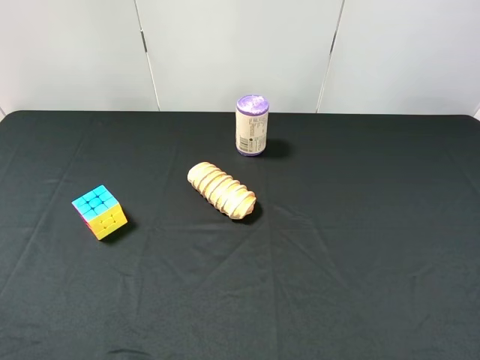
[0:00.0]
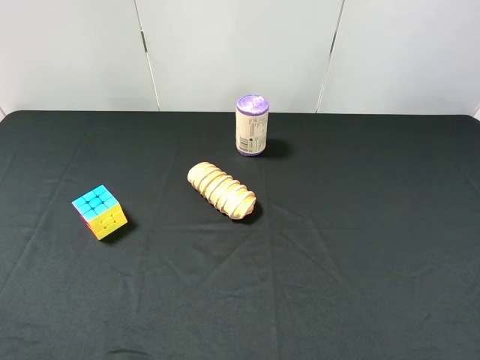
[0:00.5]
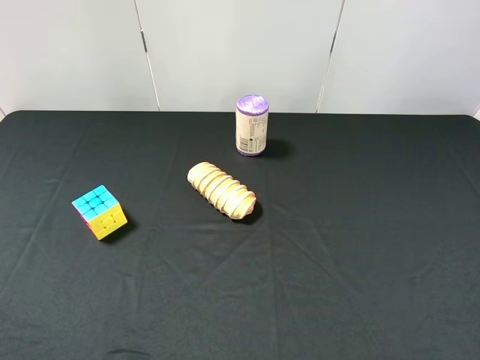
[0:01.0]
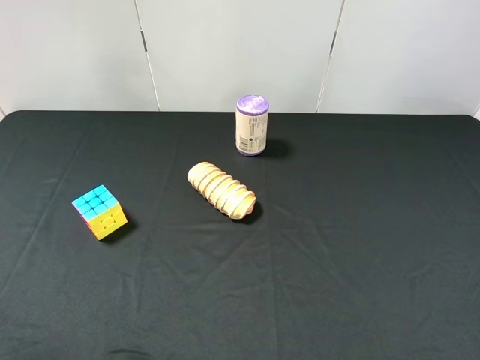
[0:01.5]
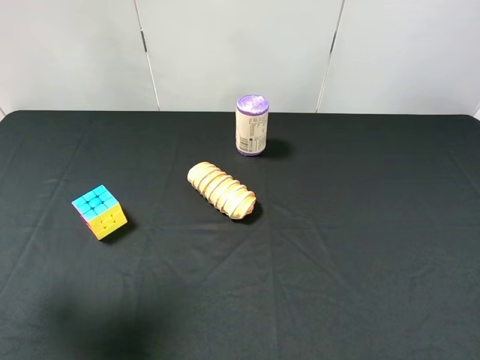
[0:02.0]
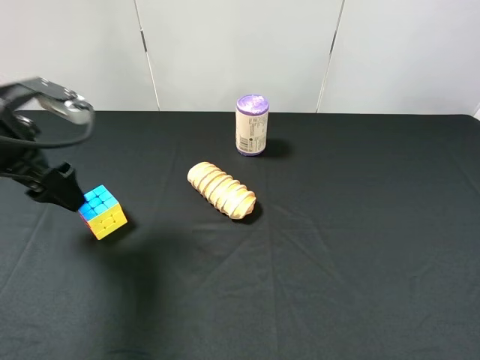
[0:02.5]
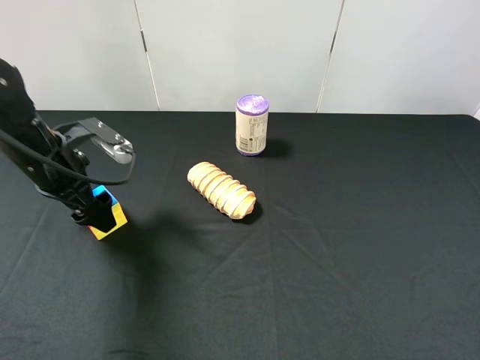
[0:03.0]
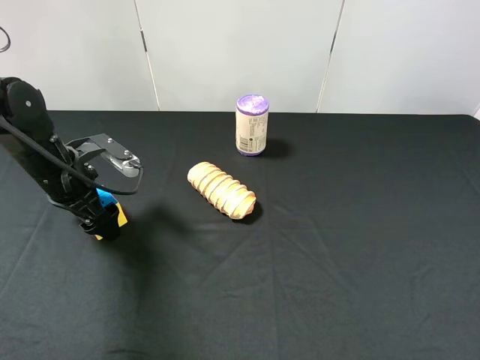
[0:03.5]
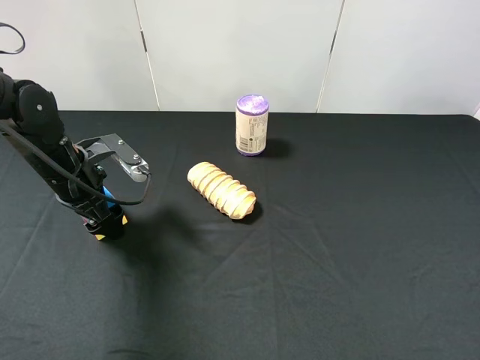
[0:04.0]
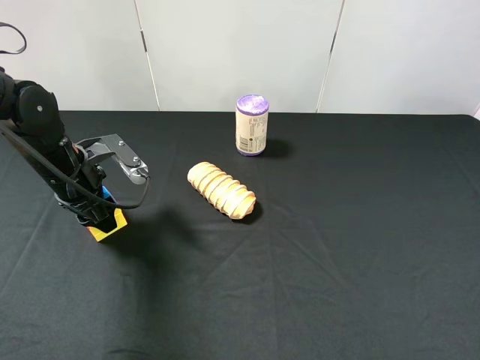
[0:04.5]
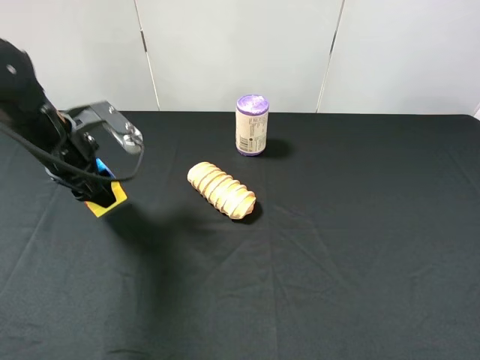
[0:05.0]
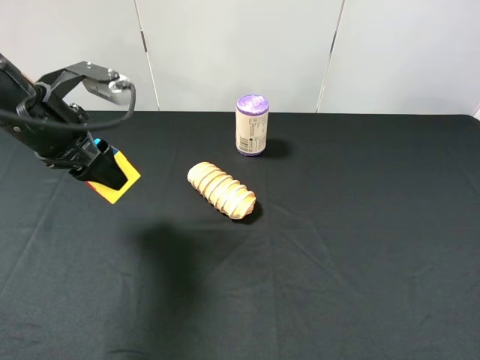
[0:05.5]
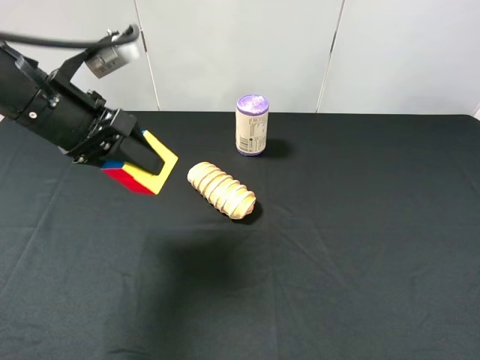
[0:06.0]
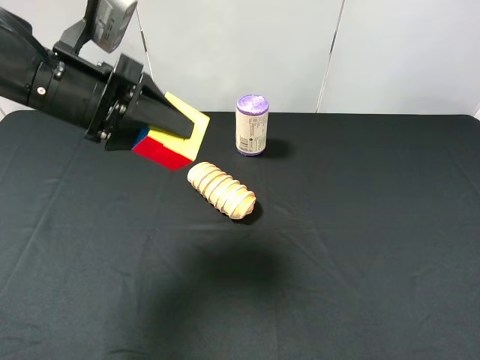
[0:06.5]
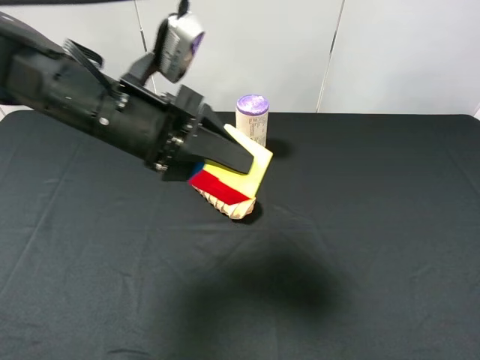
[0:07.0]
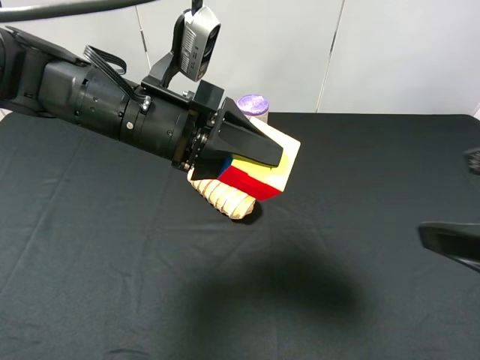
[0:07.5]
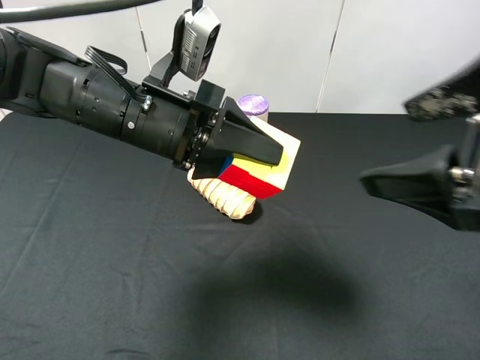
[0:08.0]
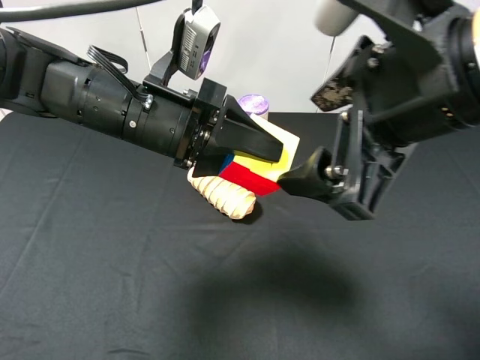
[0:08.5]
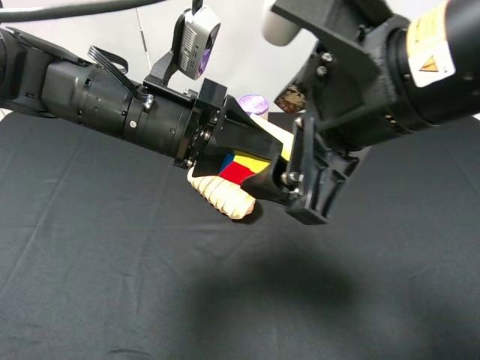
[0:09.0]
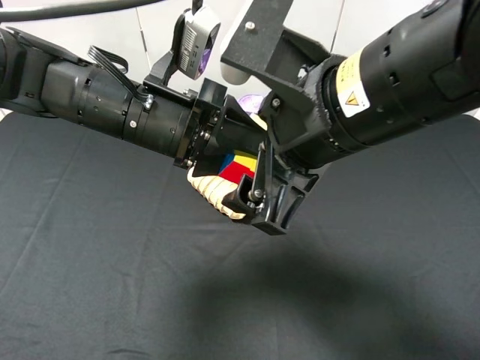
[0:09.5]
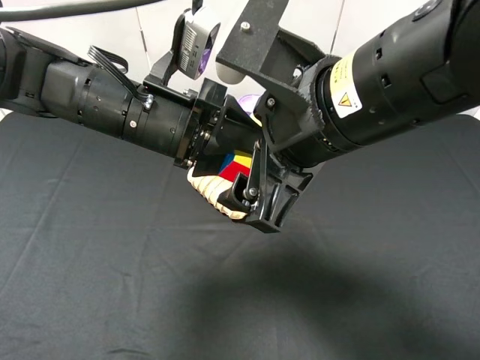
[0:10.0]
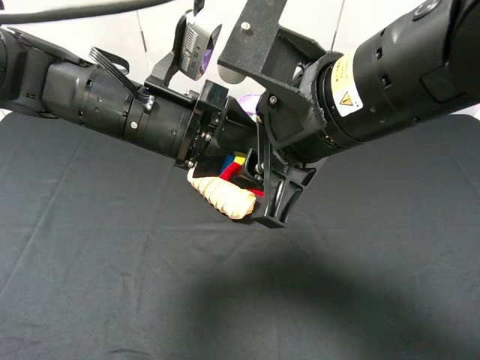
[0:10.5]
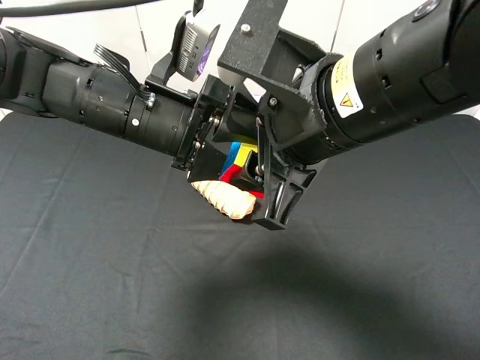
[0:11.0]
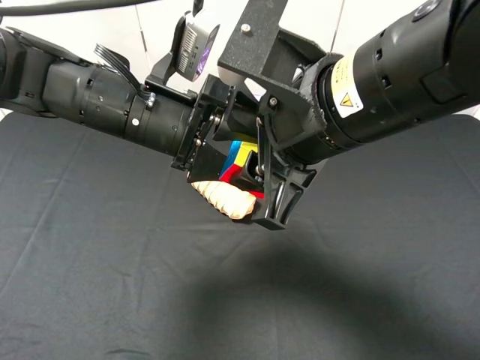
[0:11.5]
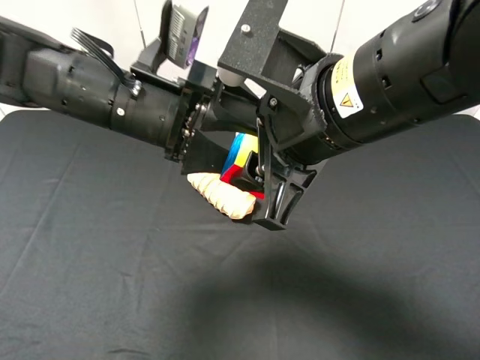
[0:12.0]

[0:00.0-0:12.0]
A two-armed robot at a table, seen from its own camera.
Task of the whole recording: use the left gripper to pick up the item and transfer it from the left gripper to the right gripper.
0:00.0 to 0:02.0: The left gripper shifts some 20 cm forward.
0:02.0 to 0:04.0: The left gripper heads downward and forward, covering about 20 cm.
0:04.0 to 0:06.0: The left gripper travels upward by approximately 10 cm, and closes its fingers.
0:06.0 to 0:08.0: The right gripper shifts approximately 15 cm forward, to the left and upward, while the left gripper goes roughly 10 cm to the right.
0:08.0 to 0:10.0: The right gripper travels to the left by approximately 15 cm.
0:10.0 to 0:12.0: The right gripper closes its fingers, while the left gripper opens its fingers.

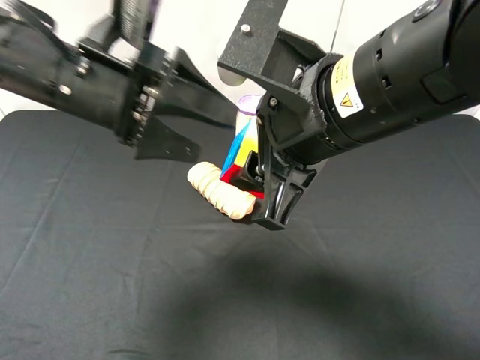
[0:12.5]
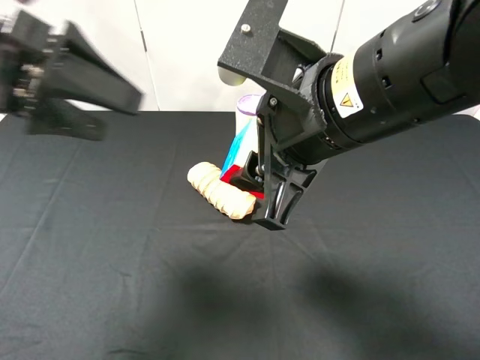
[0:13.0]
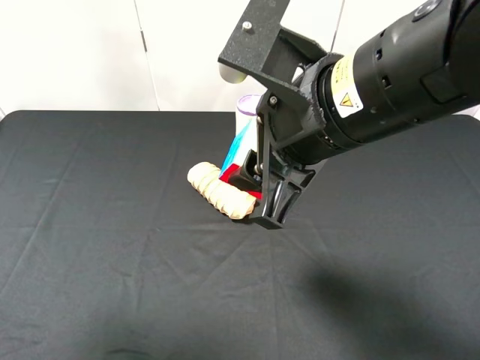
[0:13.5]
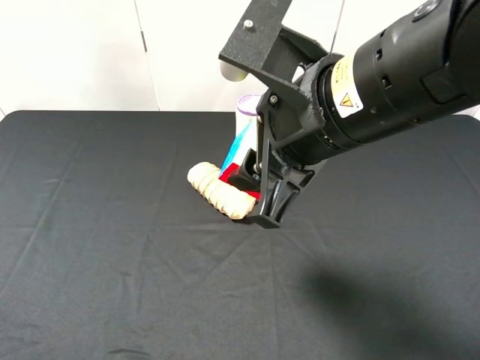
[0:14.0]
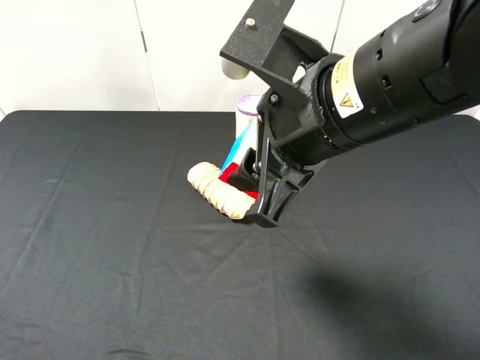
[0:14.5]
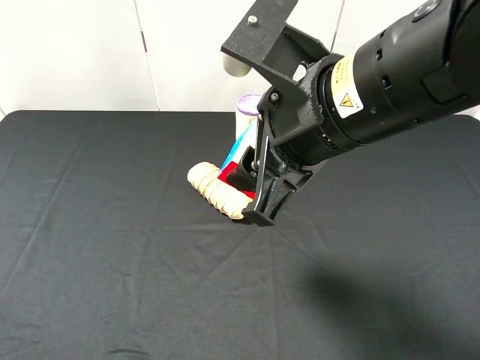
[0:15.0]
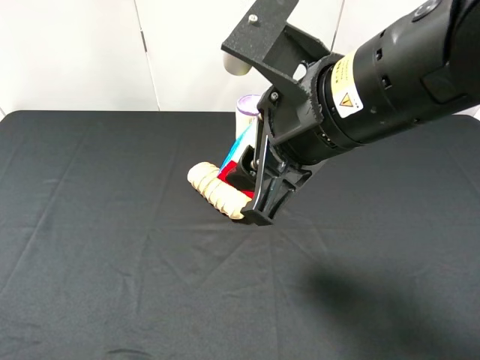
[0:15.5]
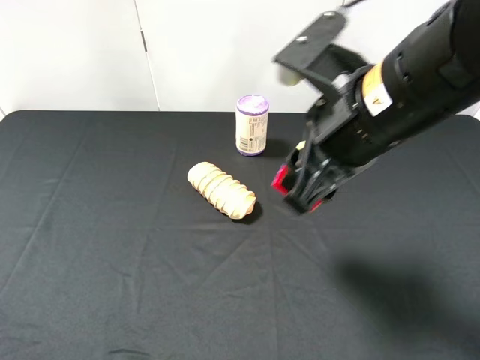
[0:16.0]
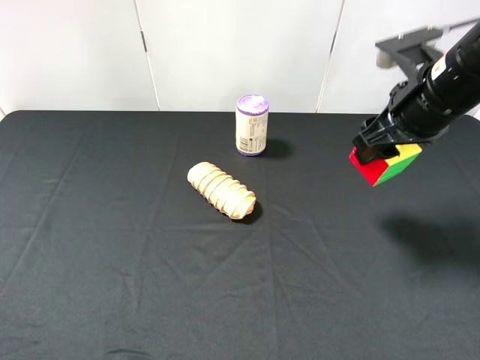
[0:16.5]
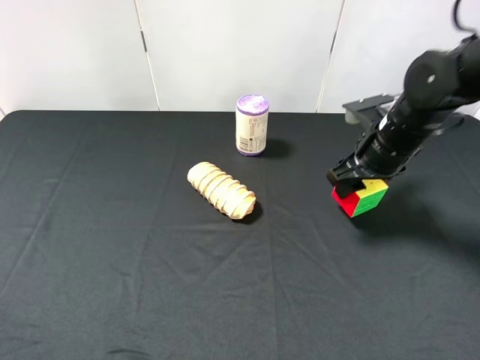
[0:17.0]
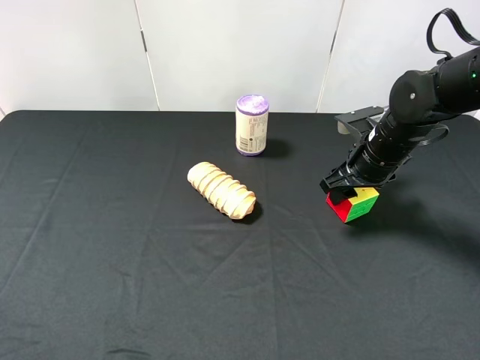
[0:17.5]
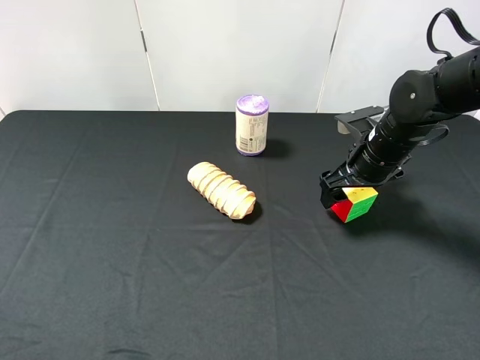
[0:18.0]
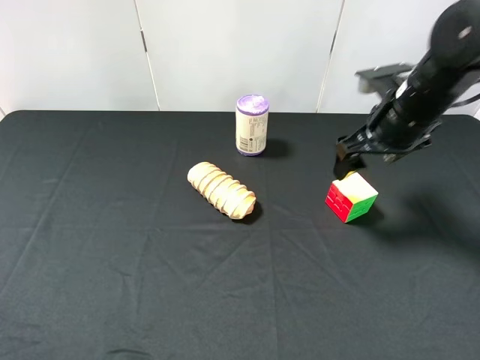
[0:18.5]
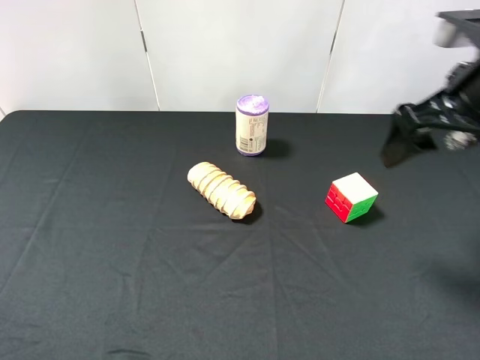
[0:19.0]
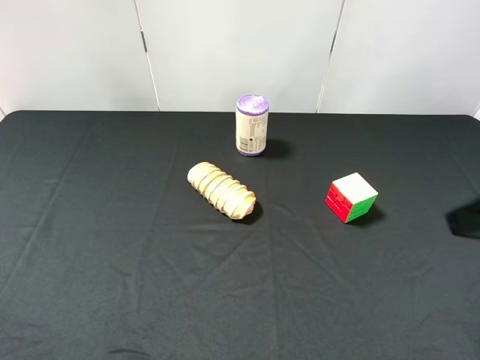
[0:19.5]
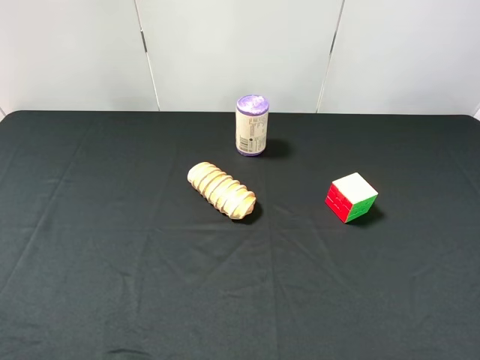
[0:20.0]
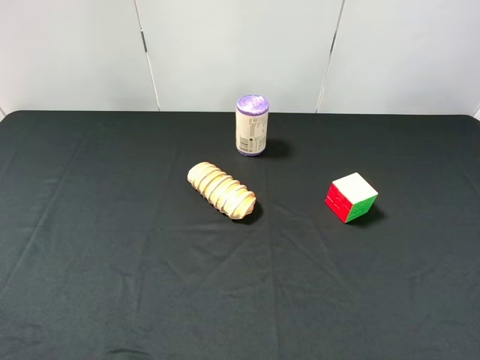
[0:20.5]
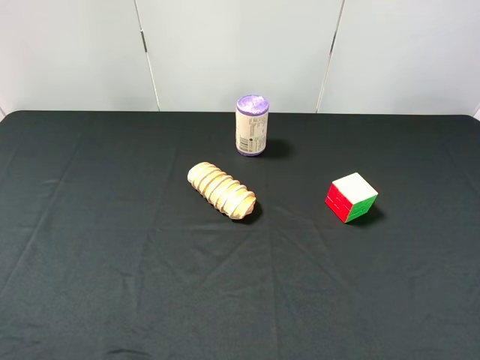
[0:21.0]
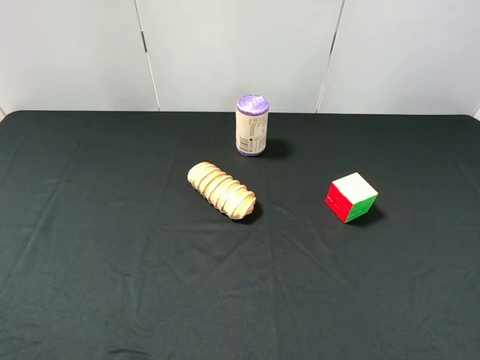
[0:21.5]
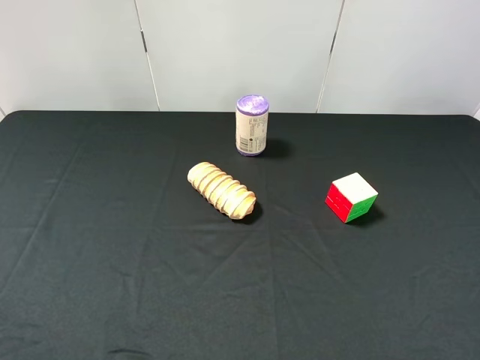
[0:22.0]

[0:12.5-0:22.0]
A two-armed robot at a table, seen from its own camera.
Task of the whole recording: use the left gripper to pick up the item and transfer it from the left gripper to the right gripper.
0:12.5 to 0:14.5: The left gripper is displaced backward and to the left by some 30 cm.
0:14.5 to 0:16.5: The right gripper goes about 20 cm to the right and forward.
0:16.5 to 0:18.0: The right gripper travels downward and forward by some 15 cm, and opens its fingers.
0:18.0 to 0:20.0: The right gripper travels backward and upward by some 35 cm.

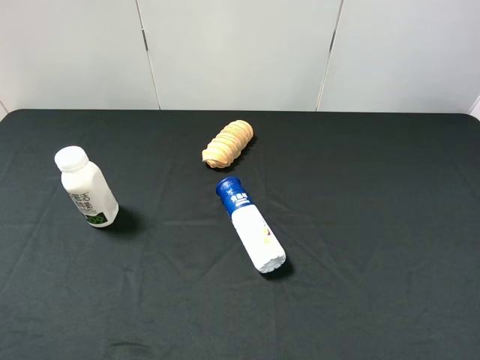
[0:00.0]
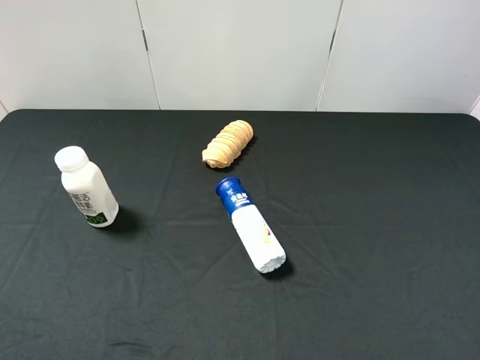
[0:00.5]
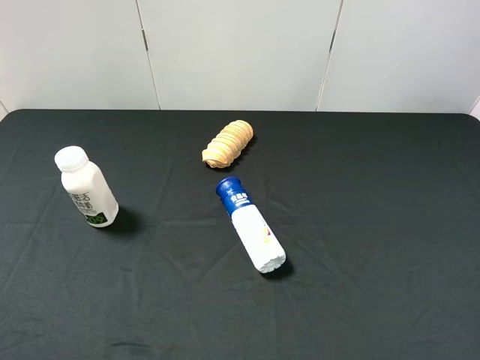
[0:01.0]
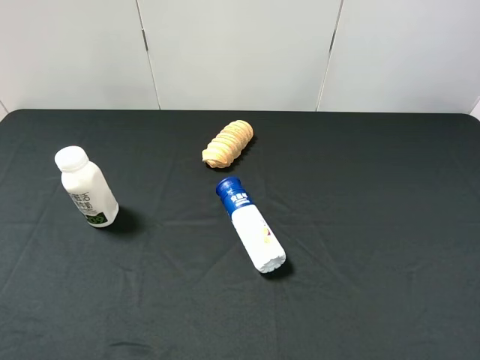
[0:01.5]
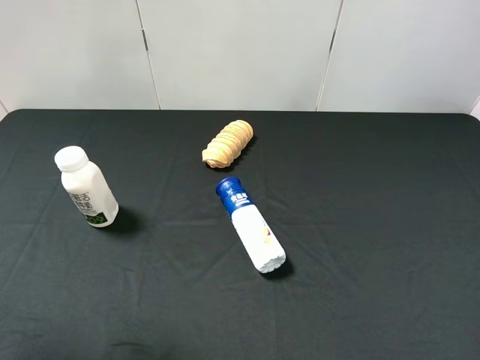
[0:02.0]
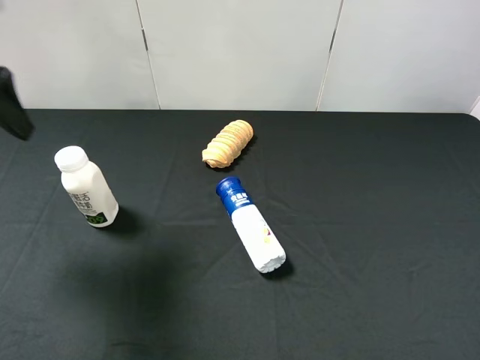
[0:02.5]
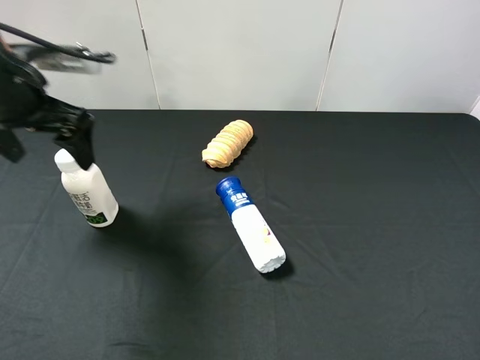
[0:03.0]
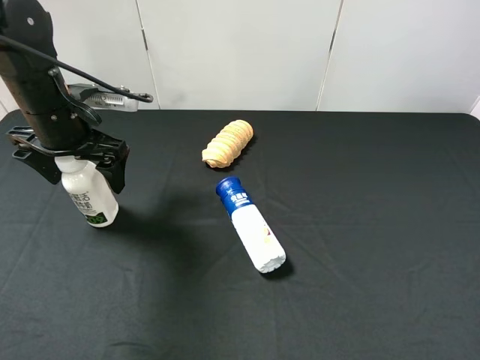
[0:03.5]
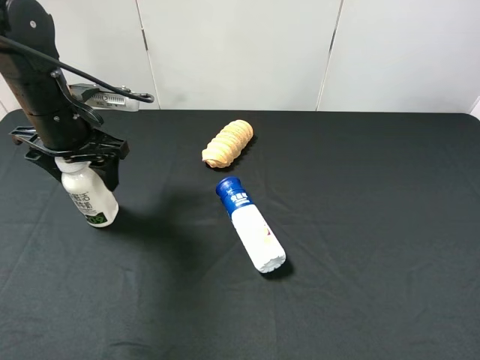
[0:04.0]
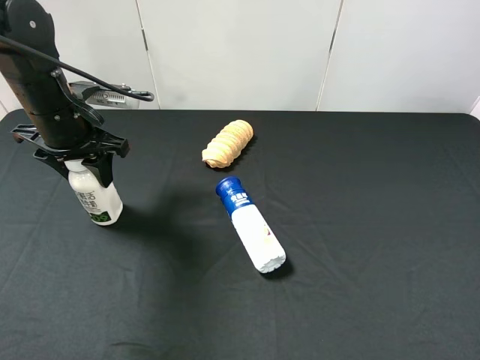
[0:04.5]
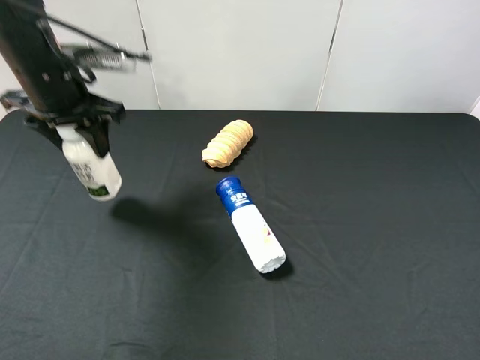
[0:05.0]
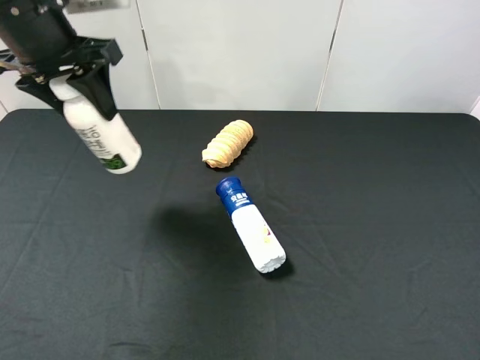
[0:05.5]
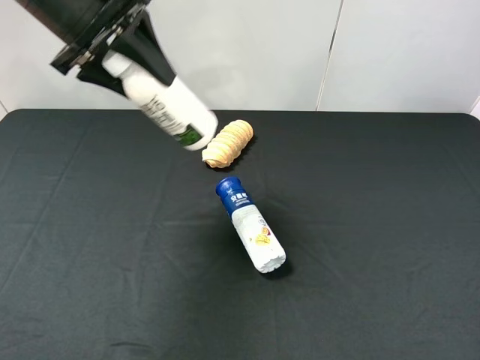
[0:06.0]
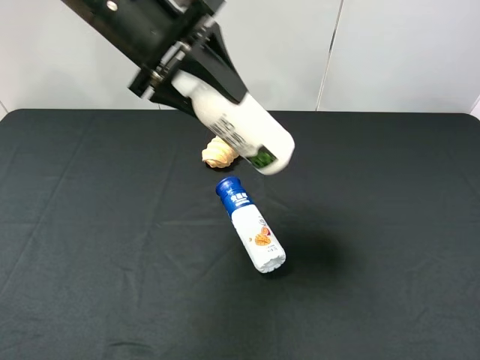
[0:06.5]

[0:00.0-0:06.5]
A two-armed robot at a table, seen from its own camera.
Task of the whole recording: use the left gripper to pick up the item and transfer it from the left gripper to the right gripper.
0:02.0 to 0:04.5: The left gripper goes roughly 30 cm forward, downward and to the right, and closes.
0:04.5 to 0:06.5: The left gripper is displaced to the right and upward by roughly 15 cm.
